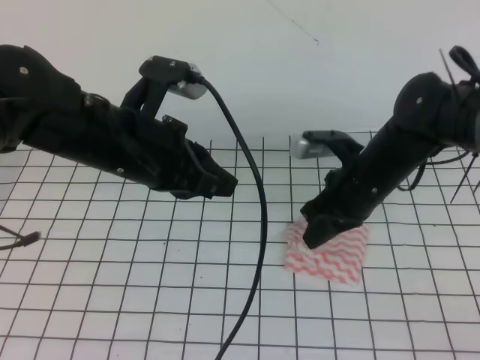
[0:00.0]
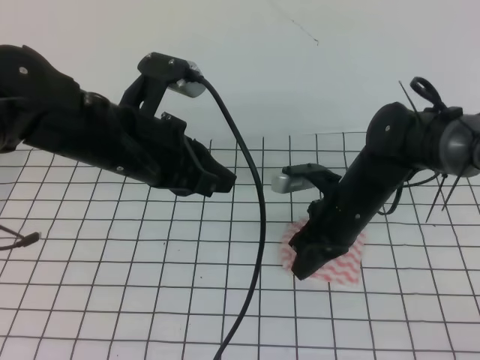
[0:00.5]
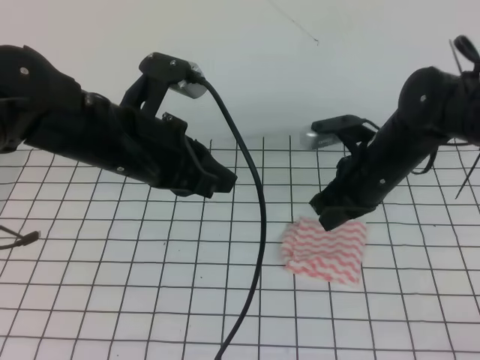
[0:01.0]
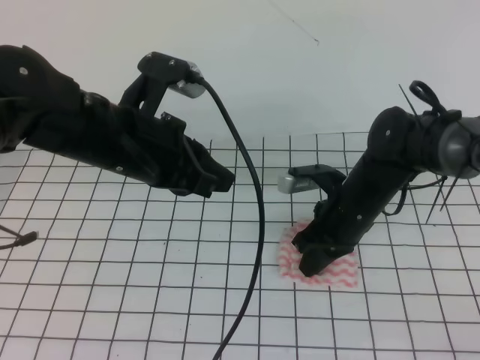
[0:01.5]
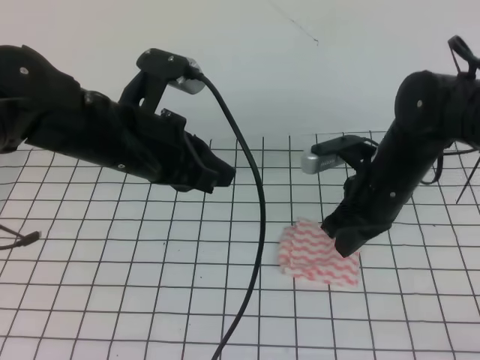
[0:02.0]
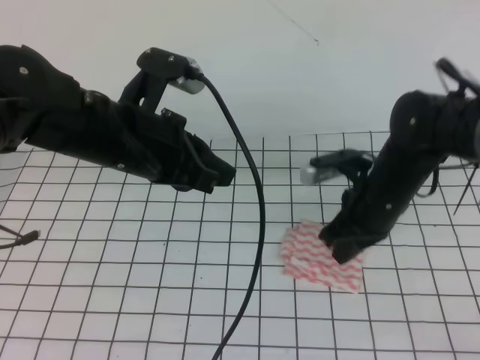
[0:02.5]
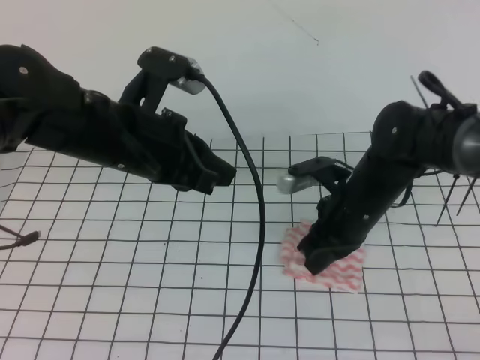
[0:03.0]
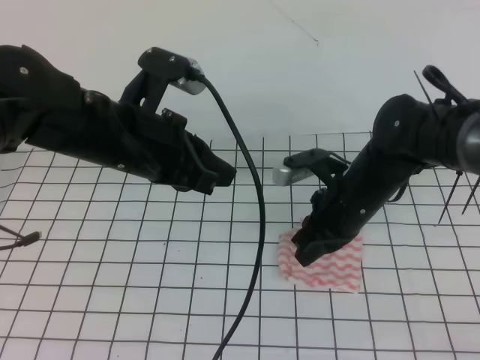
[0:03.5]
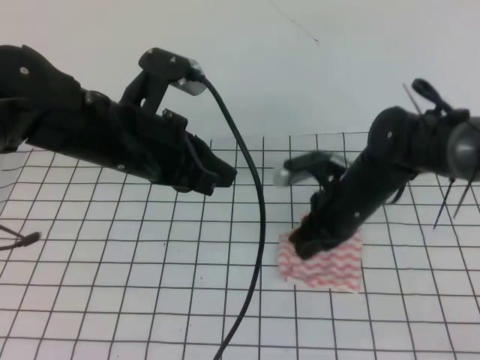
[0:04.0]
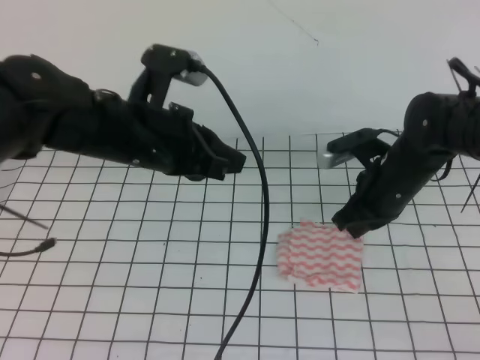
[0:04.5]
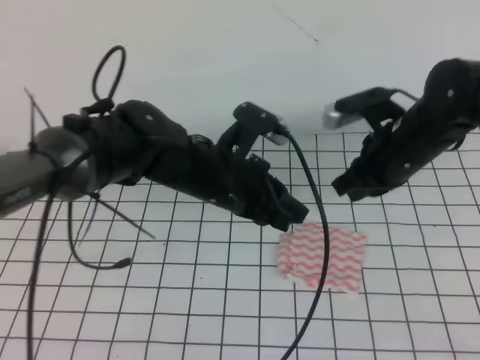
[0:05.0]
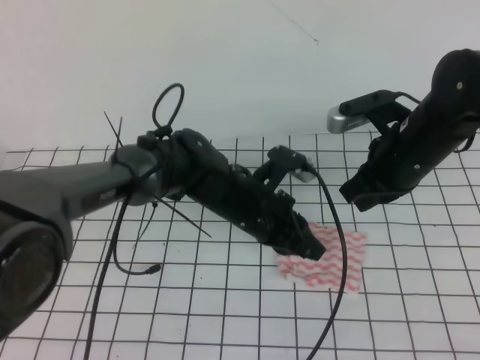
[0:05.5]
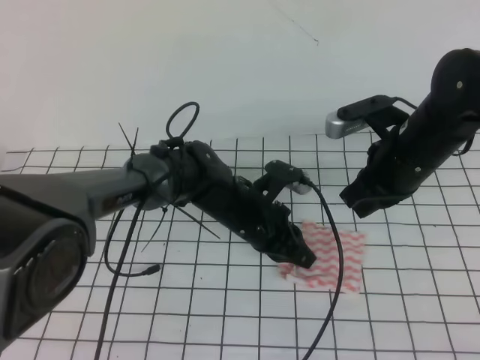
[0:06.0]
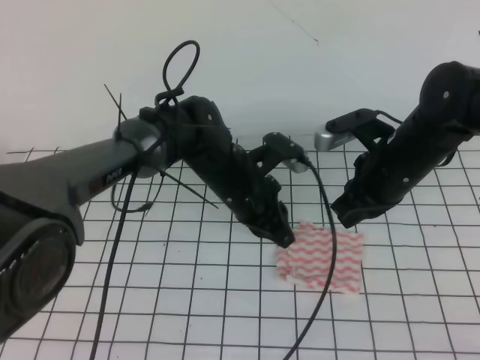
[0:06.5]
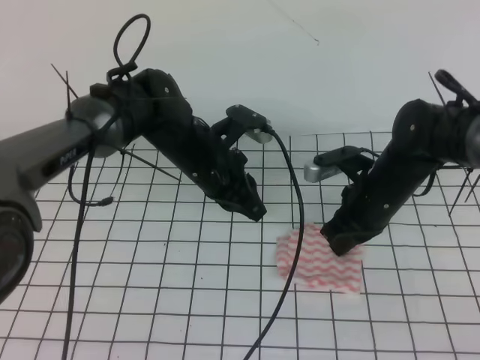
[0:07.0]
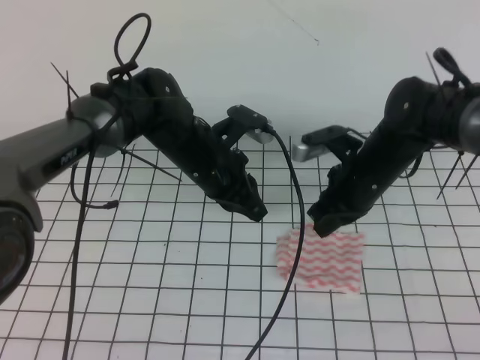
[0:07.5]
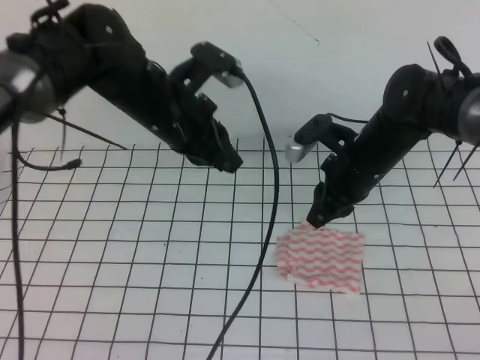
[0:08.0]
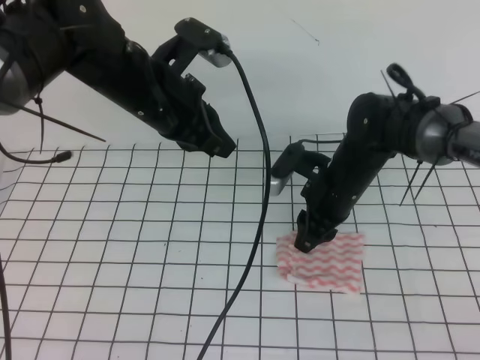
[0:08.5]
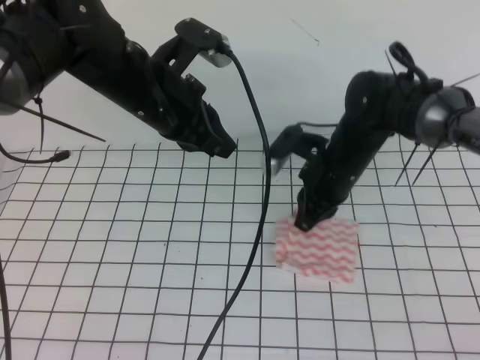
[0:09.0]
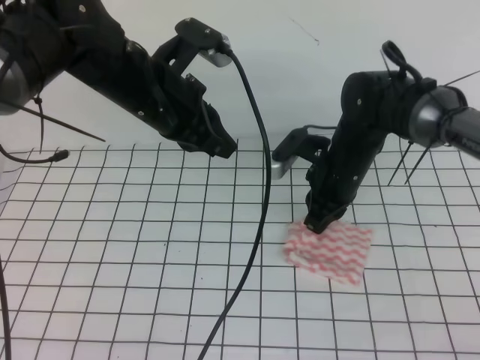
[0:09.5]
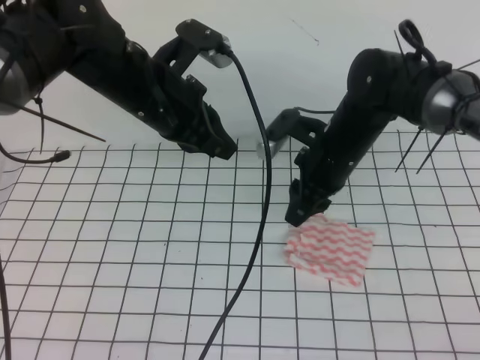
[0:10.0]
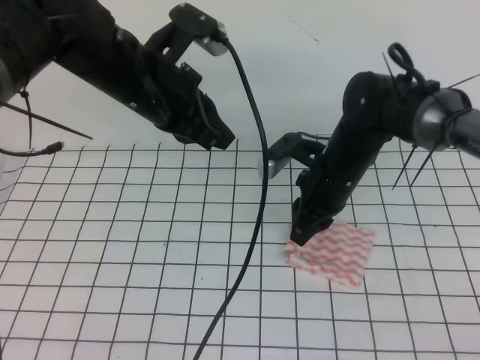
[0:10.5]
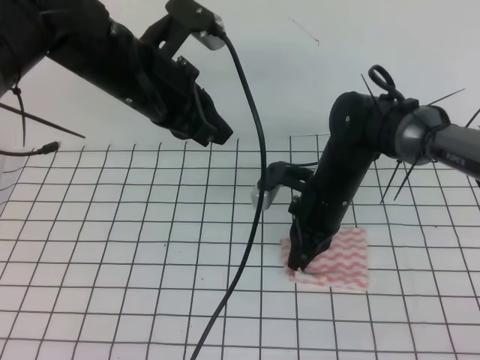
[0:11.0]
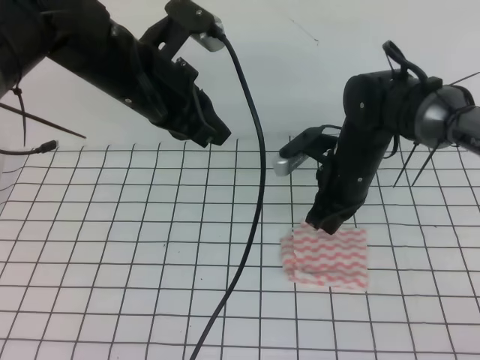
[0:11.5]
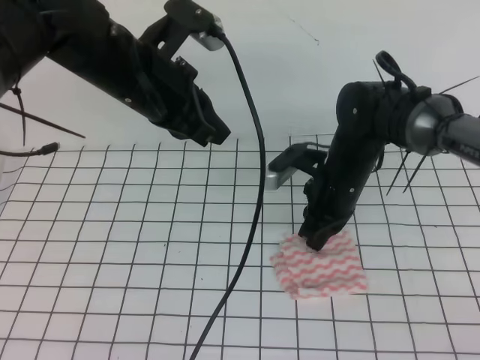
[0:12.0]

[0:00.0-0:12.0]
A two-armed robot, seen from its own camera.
0:00.0 to 0:04.0: The grippers stay close to where they were, moving slightly.
0:04.0 to 0:06.0: The right gripper moves upward, about 5 cm. Meanwhile the left gripper heads downward and to the right, covering some 20 cm.
0:06.0 to 0:08.0: The left gripper heads upward and to the left, covering roughly 15 cm, while the right gripper travels downward by some 5 cm, and opens up.
0:10.0 to 0:12.0: The right gripper closes its fingers.

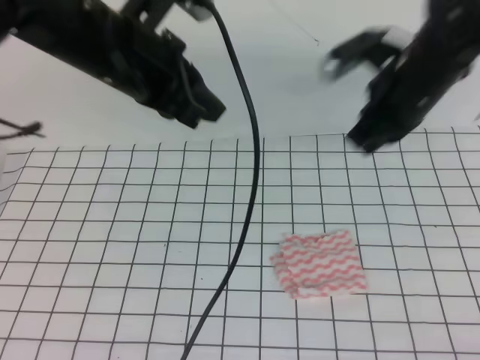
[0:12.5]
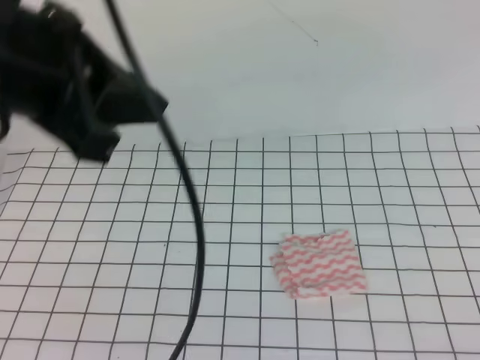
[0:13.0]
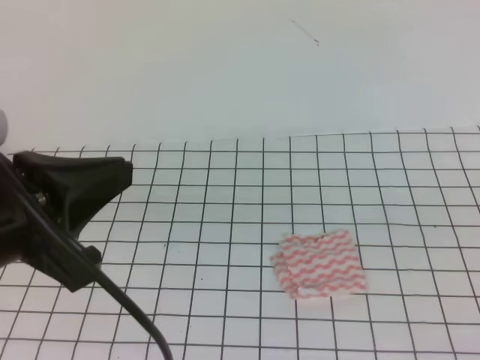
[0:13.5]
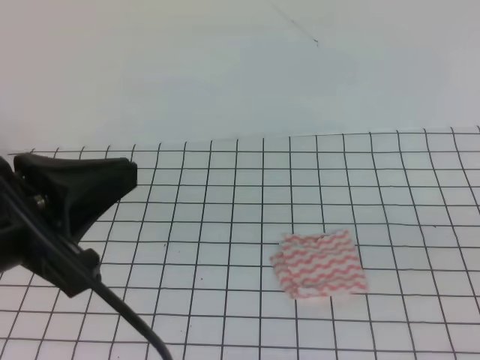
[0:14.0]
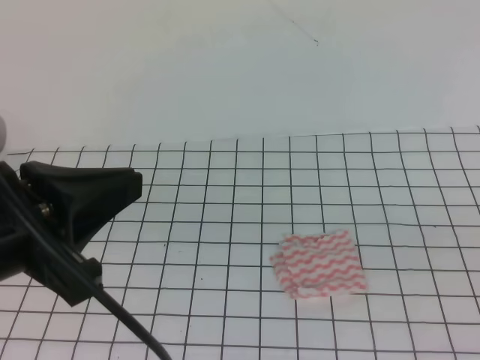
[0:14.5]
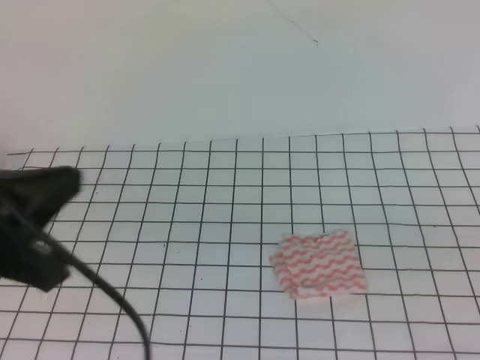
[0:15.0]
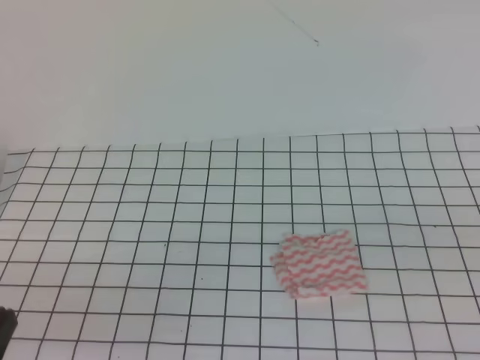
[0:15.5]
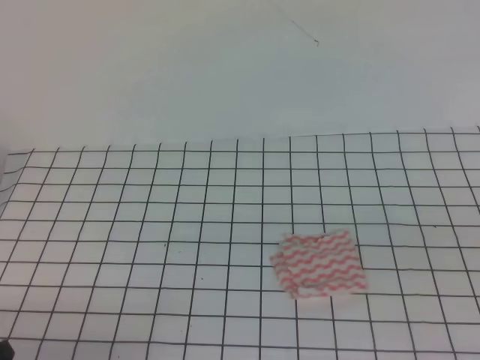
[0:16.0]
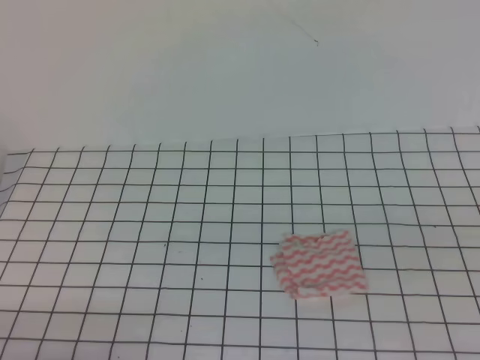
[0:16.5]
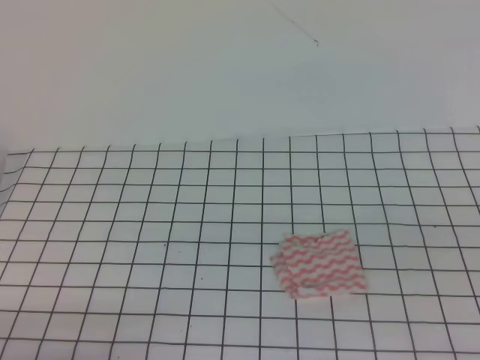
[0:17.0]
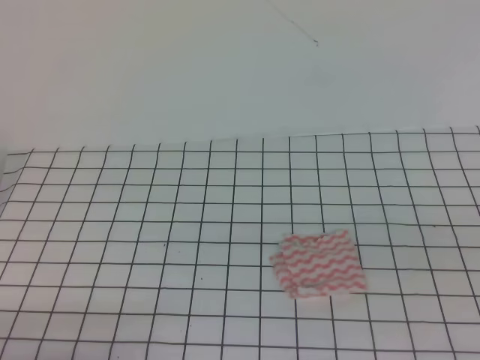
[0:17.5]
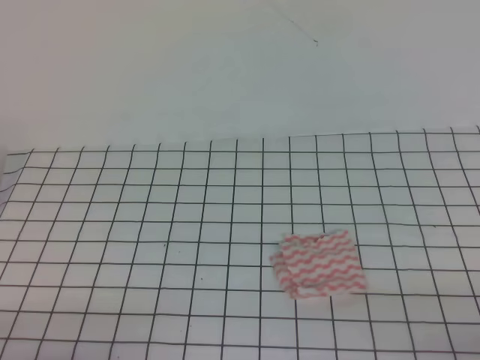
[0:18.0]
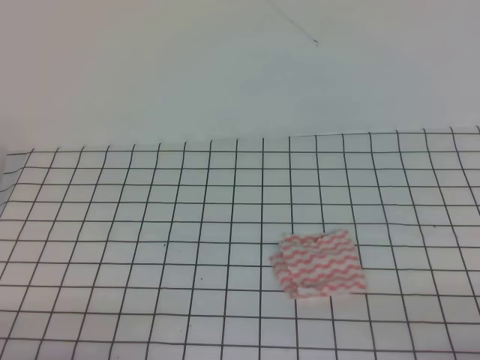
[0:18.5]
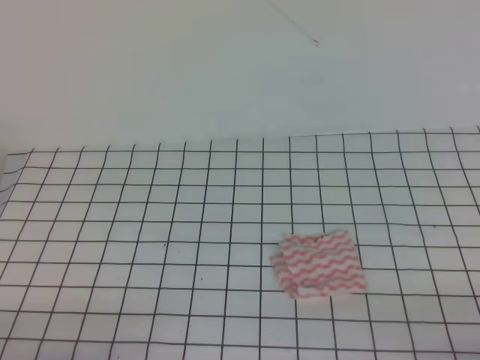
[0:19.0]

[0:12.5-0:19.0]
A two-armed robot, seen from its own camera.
Step, 0:12.5 to 0:19.0: Fold the towel.
0:12.5 to 0:14.5: The right gripper travels backward by approximately 35 cm. The left gripper heads backward and to the left, covering some 20 cm.
0:14.5 to 0:17.0: The left gripper travels downward, to the left and backward by some 25 cm.
